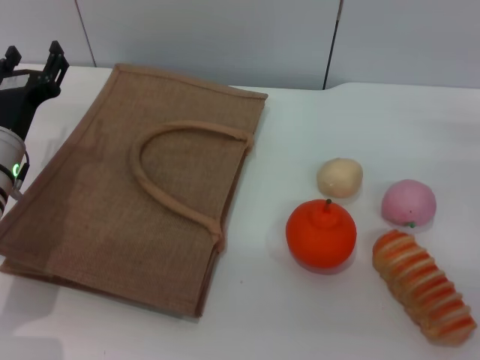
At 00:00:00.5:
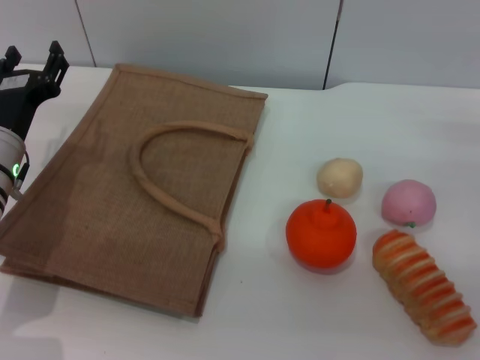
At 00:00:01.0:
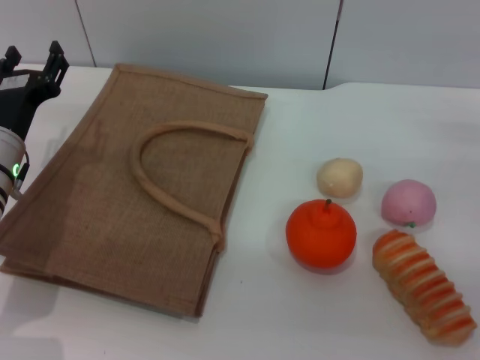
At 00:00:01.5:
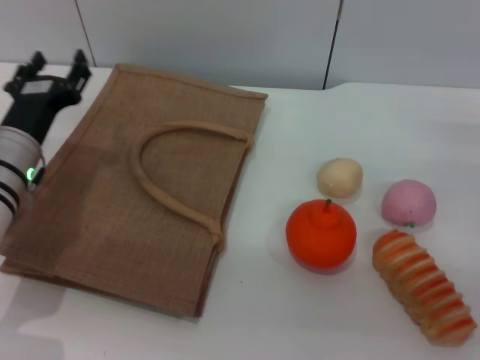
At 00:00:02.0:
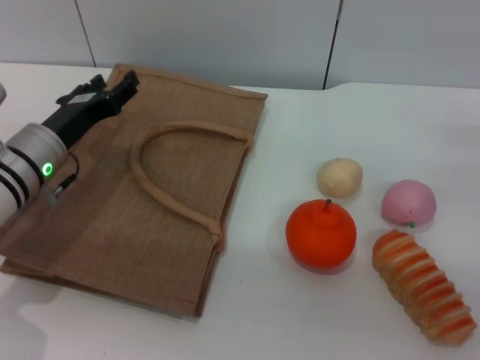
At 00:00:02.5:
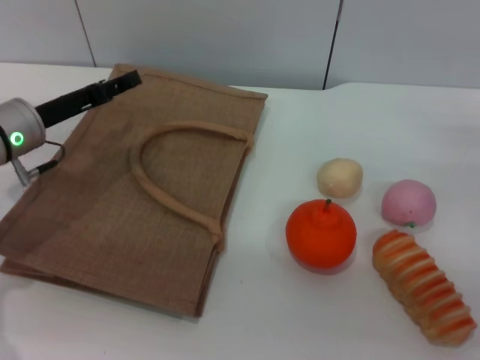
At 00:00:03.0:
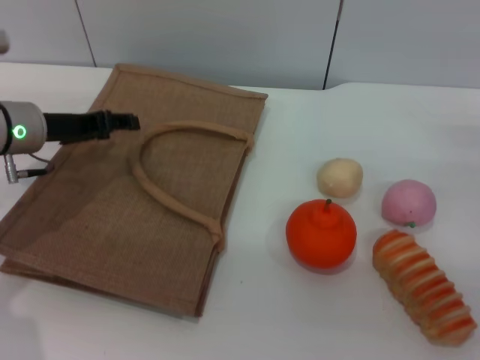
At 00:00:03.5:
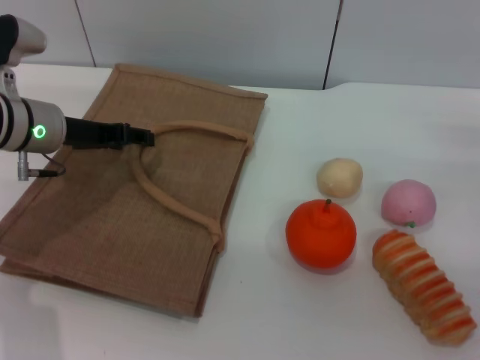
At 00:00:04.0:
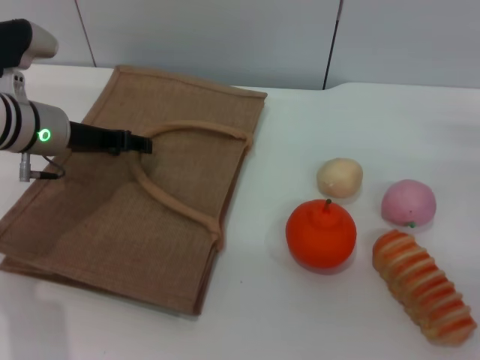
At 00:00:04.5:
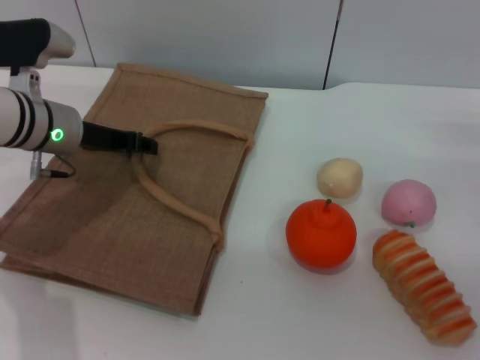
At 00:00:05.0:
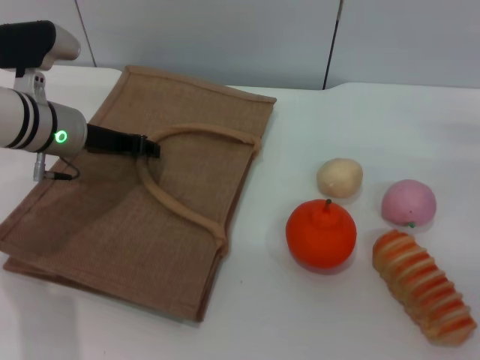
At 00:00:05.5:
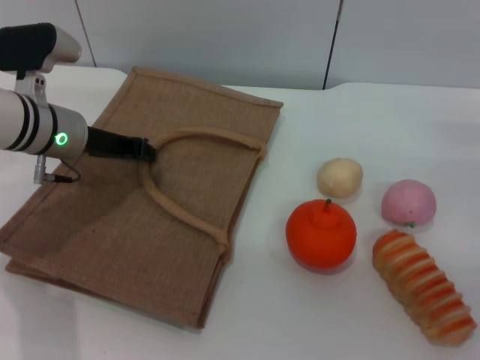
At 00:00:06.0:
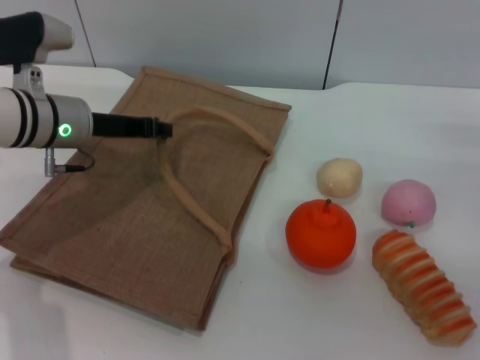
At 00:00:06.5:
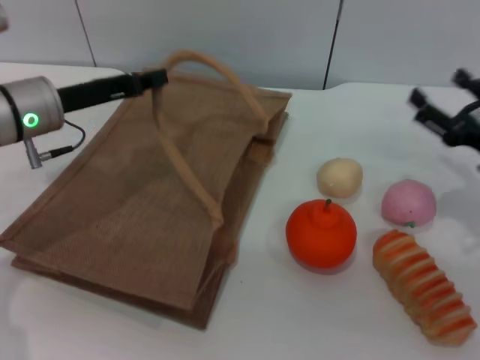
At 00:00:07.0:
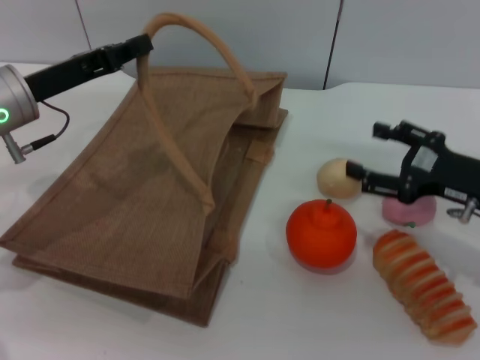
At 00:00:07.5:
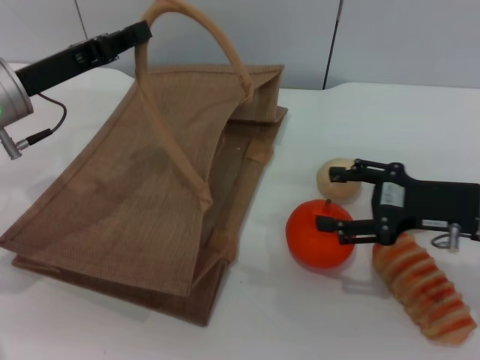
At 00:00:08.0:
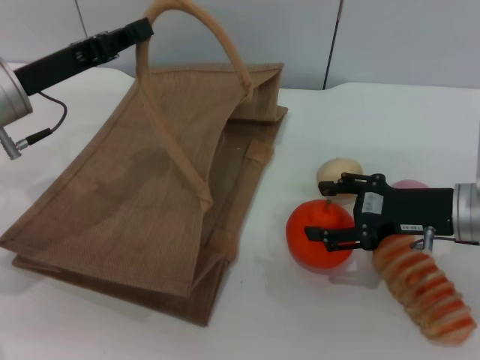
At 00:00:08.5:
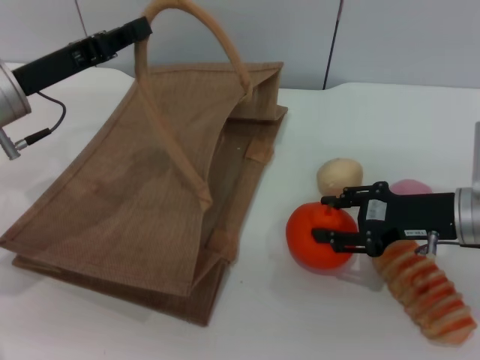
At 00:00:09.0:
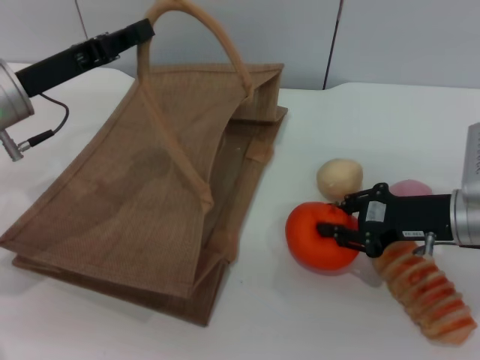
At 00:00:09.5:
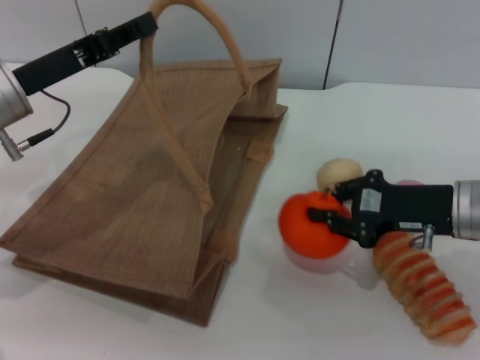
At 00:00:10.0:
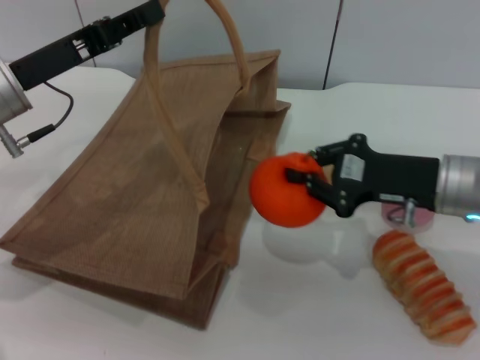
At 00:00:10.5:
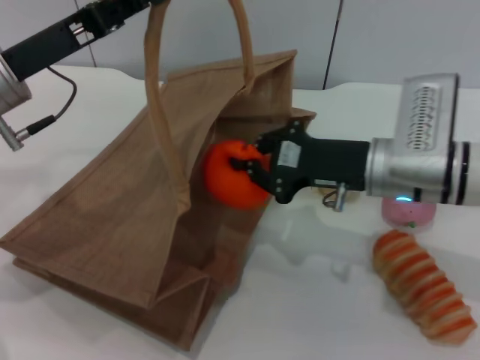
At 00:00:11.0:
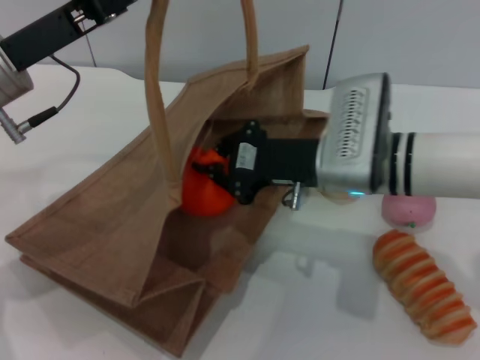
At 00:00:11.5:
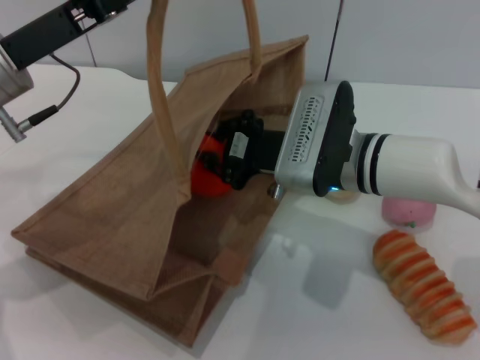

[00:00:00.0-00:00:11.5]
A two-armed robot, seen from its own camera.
Task of the whole recording: pick up the orange from the table and place it in the brown handbag.
Step, 00:00:00.0 to 00:00:05.5: Lift the woven bag with the left gripper to open it.
Step, 00:00:06.0 to 00:00:09.5: Pick up the orange with the right gripper.
00:00:02.0 to 00:00:04.0: The left gripper is displaced upward by roughly 5 cm.
00:00:04.0 to 00:00:06.0: The left gripper closes up.
00:00:06.0 to 00:00:07.5: The right gripper shifts approximately 10 cm to the left. Meanwhile the left gripper changes place by about 5 cm.
00:00:07.5 to 00:00:09.5: The right gripper closes its fingers.
00:00:09.5 to 00:00:11.5: The right gripper travels to the left by some 15 cm.

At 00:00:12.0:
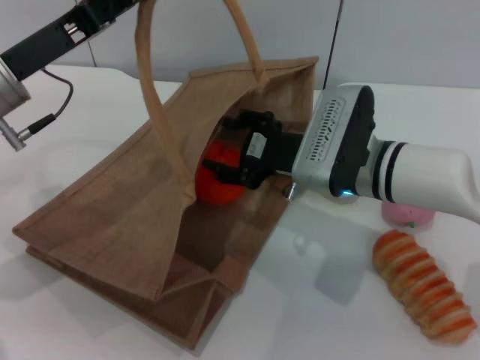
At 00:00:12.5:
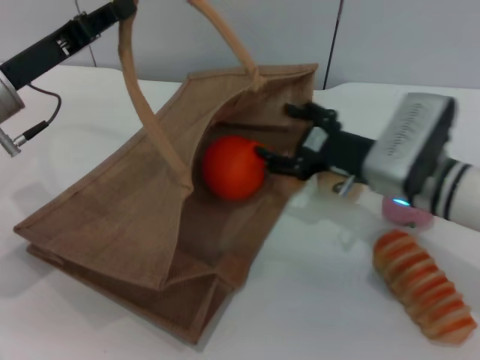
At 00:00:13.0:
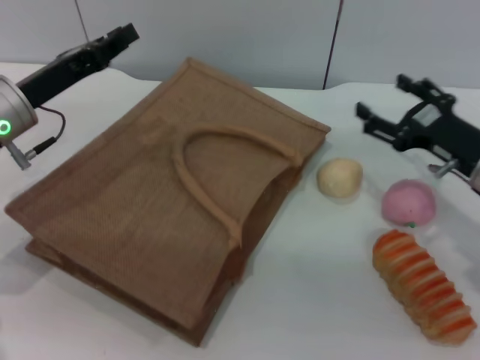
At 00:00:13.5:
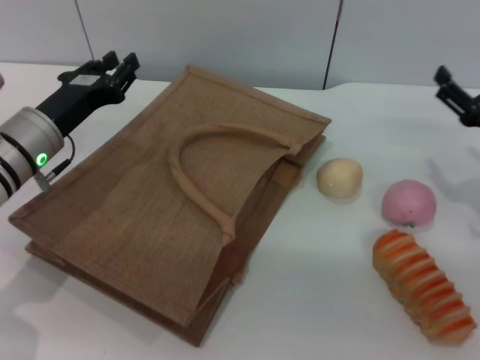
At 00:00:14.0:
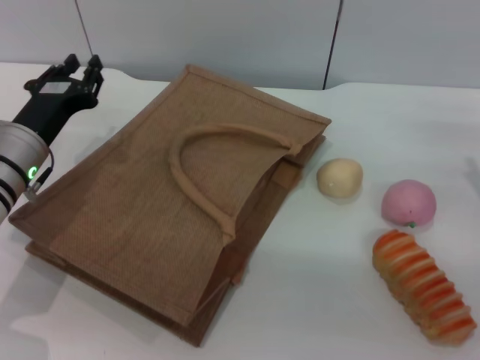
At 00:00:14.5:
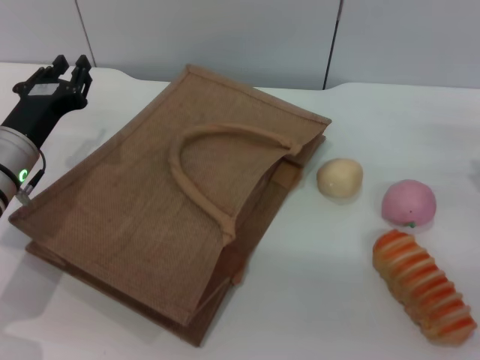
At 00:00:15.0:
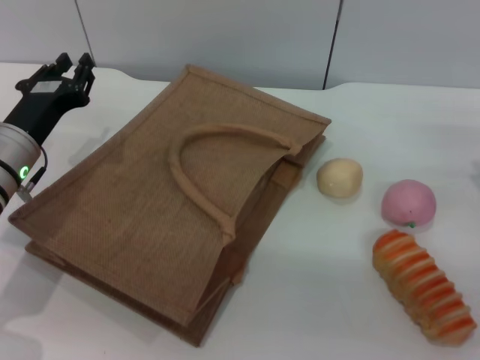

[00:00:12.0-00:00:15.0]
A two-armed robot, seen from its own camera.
Task of the whole recording: pick up the orange from the table and place it in the brown handbag.
00:00:12.0 to 00:00:13.5: The left gripper goes about 10 cm downward, and opens its fingers. The right gripper shifts roughly 20 cm to the right, and opens up.
00:00:13.5 to 00:00:15.0: The grippers move only a little.
